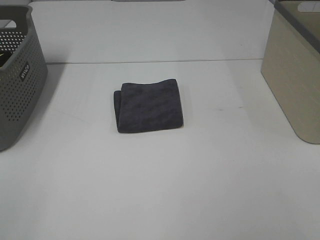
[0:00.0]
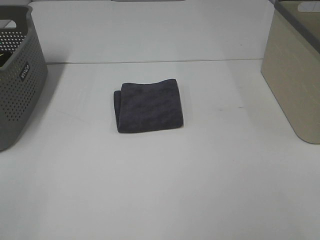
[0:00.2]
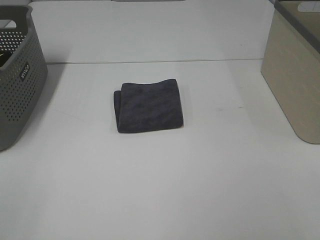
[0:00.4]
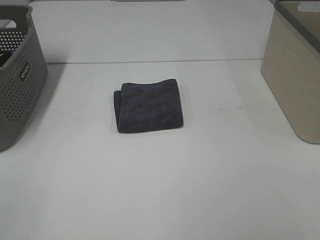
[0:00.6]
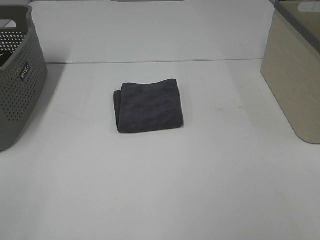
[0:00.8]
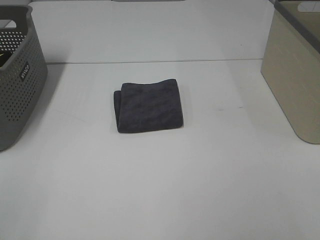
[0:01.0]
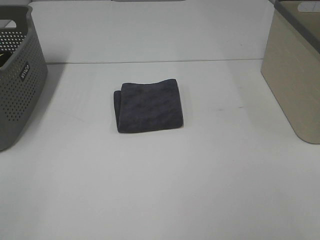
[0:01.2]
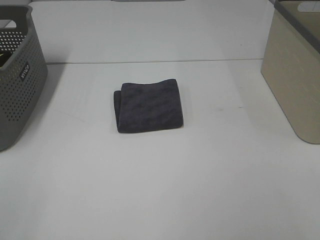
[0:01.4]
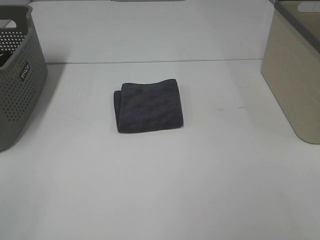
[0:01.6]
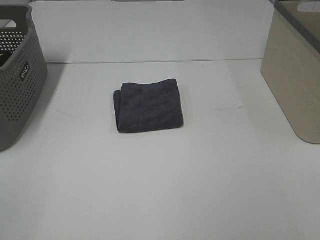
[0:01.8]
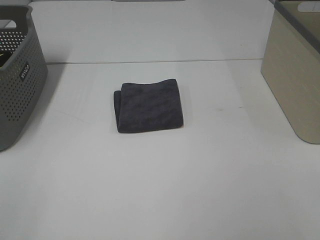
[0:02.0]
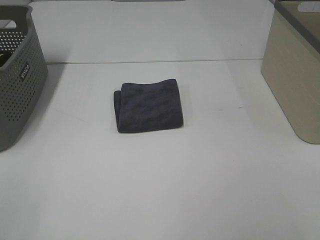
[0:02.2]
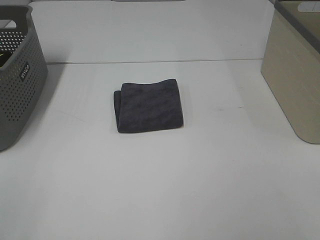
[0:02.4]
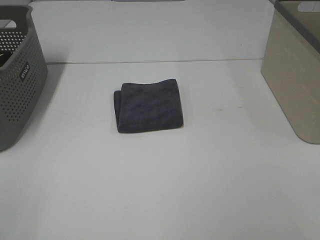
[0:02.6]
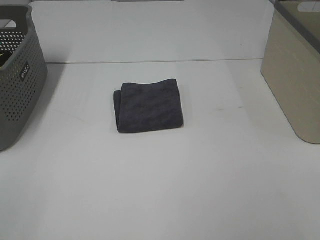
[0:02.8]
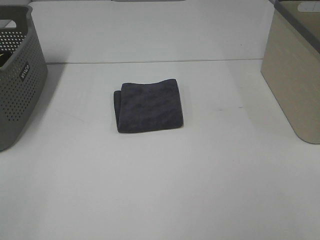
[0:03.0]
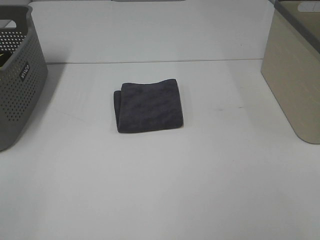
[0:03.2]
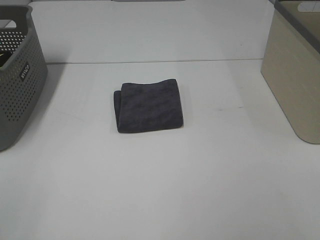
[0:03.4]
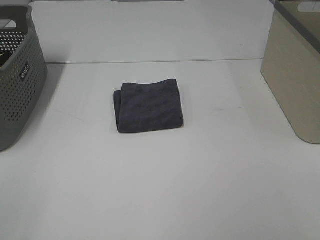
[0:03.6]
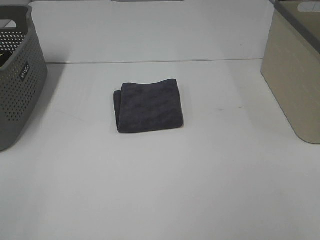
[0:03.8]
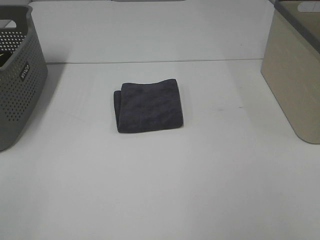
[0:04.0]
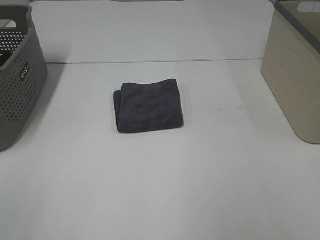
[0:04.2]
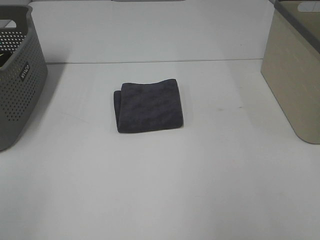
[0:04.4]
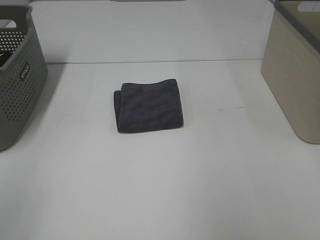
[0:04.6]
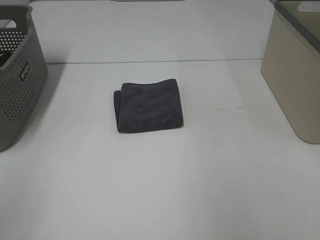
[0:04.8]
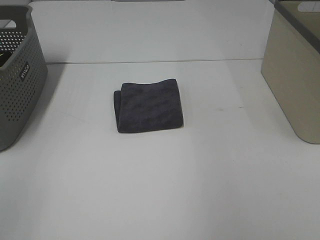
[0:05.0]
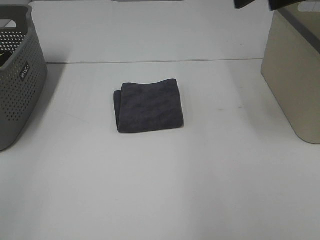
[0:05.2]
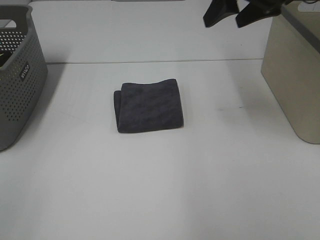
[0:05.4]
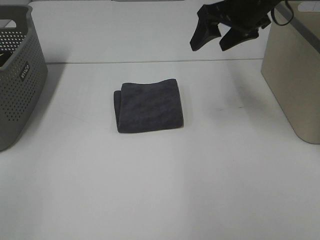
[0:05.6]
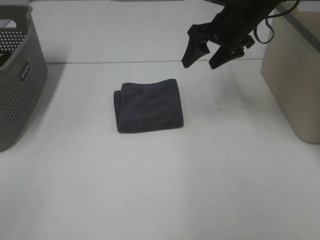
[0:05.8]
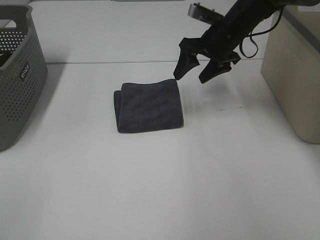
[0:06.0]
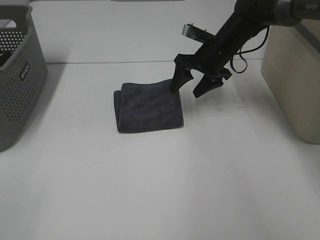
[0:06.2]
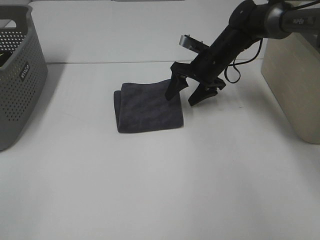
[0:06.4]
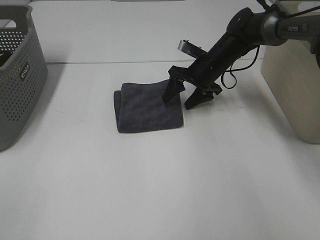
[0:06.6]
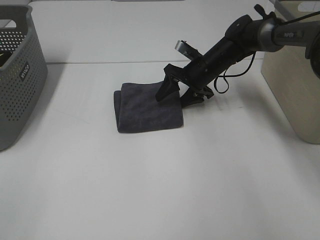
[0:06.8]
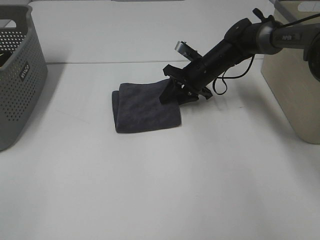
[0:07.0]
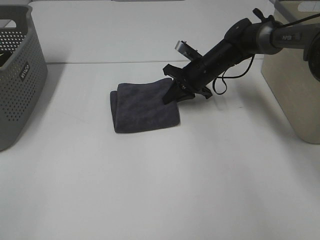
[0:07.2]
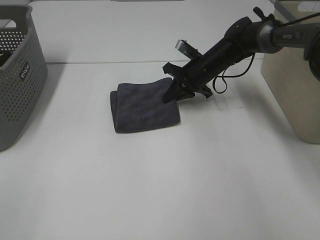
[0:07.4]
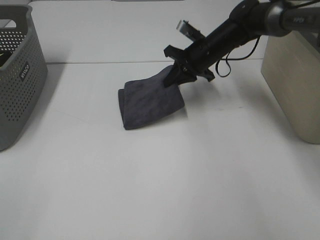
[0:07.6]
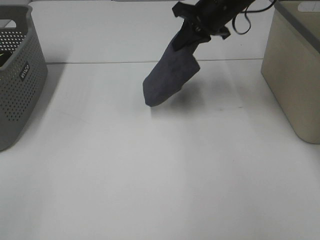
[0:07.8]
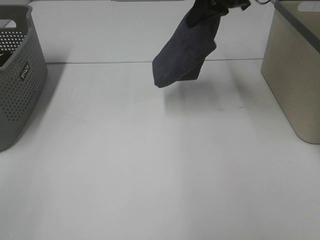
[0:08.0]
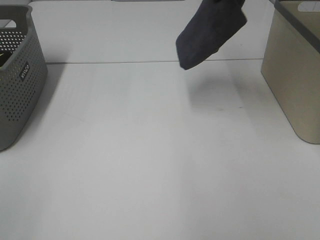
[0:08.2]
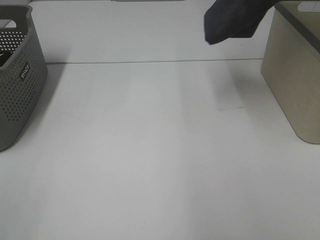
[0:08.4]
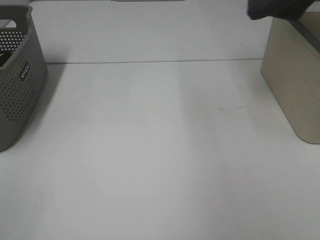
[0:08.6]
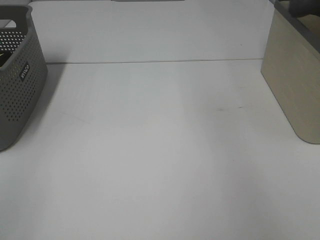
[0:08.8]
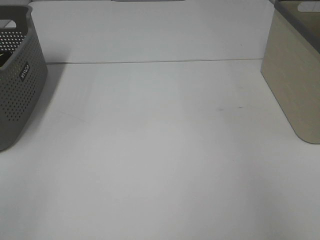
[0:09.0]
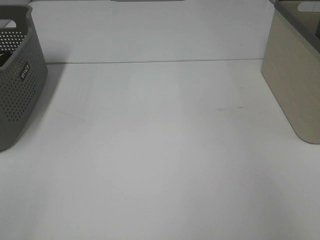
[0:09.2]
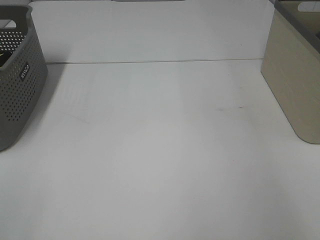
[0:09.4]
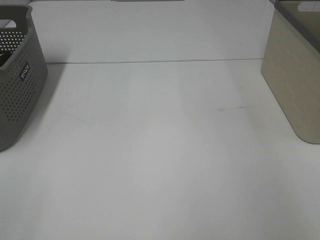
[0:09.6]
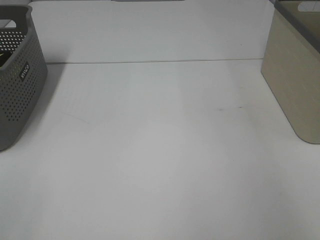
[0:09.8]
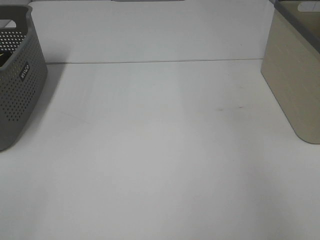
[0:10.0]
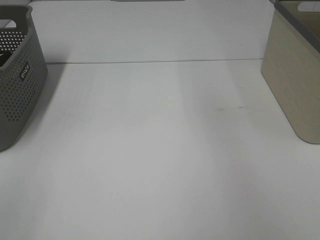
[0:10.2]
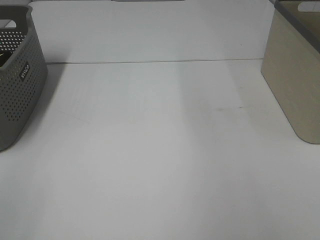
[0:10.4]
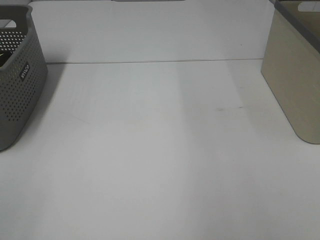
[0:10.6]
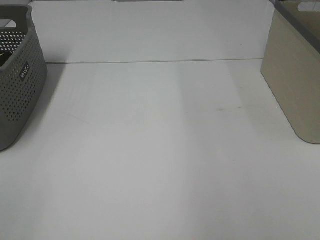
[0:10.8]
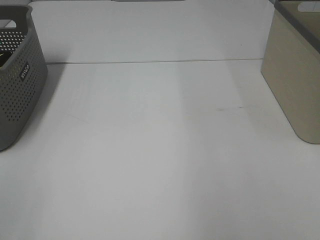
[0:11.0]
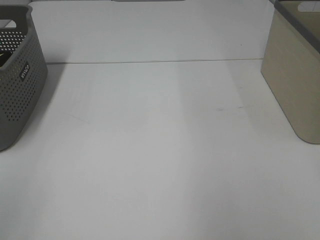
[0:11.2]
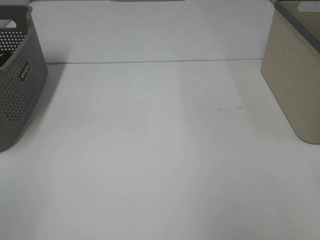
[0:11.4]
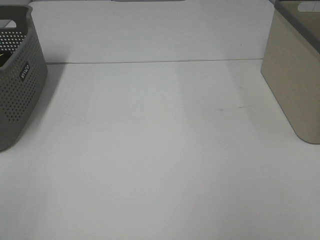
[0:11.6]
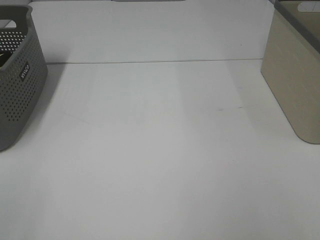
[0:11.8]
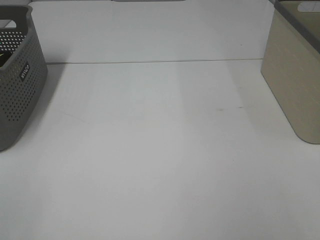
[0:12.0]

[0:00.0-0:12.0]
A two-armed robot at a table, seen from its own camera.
Step, 0:00.0 to 0:07.0: Right hand: grab the folded grey towel.
Step, 0:07.2 to 0:09.6: Right hand: place the grey towel in right basket.
0:00.0 to 0:03.0: The two grippers keep their place.
0:04.4 to 0:06.0: The right gripper goes roughly 40 cm forward, downward and to the left.
0:06.0 to 0:07.6: The right gripper closes up.
0:07.6 to 0:09.0: The right gripper goes roughly 40 cm upward and to the right.

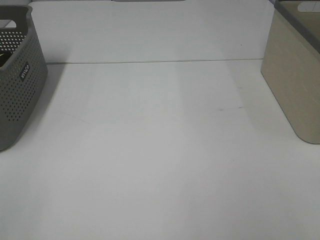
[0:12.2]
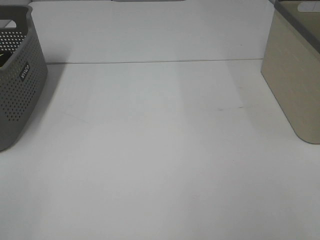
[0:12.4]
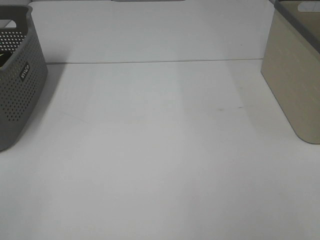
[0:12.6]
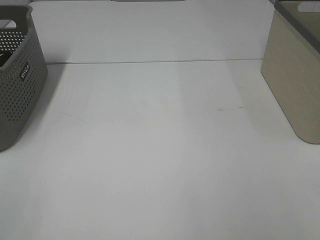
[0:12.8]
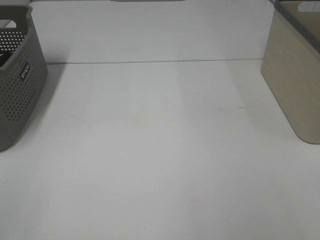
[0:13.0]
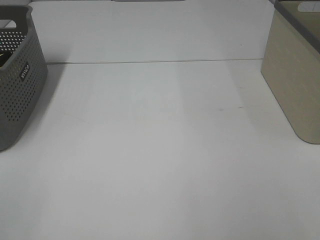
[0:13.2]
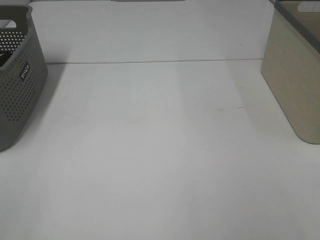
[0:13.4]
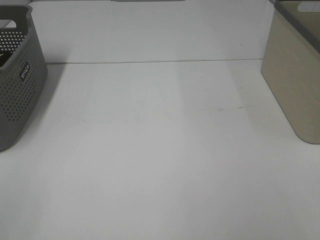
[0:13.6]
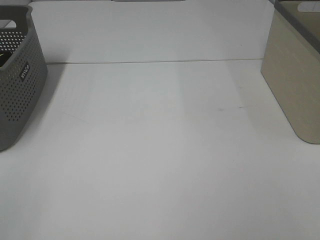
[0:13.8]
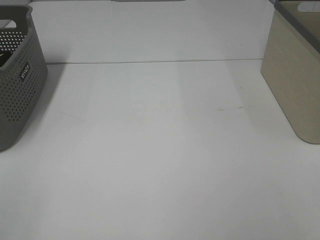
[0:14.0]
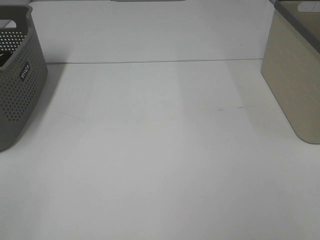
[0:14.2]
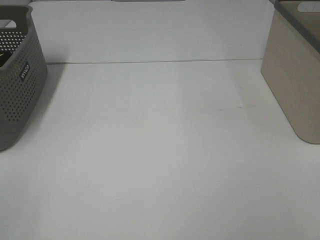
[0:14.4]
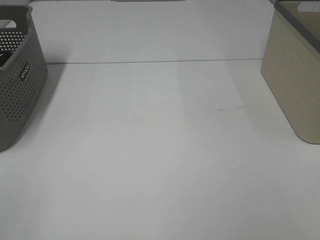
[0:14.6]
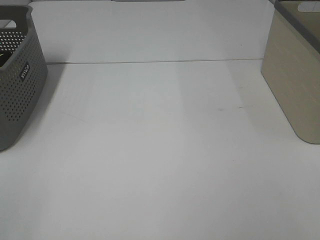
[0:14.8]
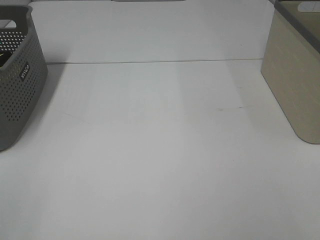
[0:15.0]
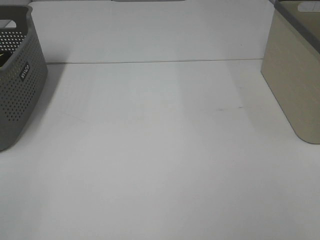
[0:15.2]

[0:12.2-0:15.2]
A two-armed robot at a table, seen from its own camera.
0:13.8 to 0:15.2: Neither gripper changes place.

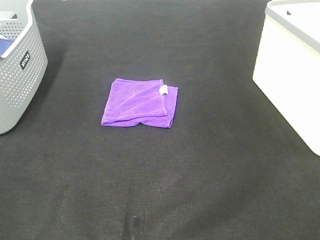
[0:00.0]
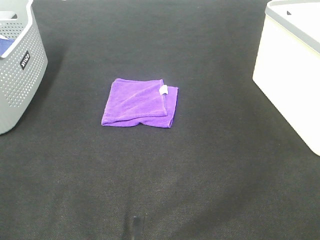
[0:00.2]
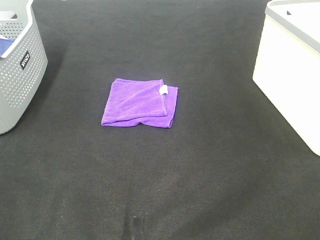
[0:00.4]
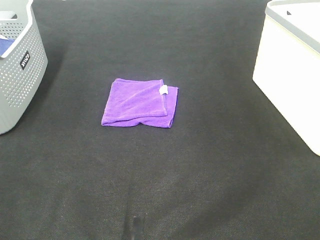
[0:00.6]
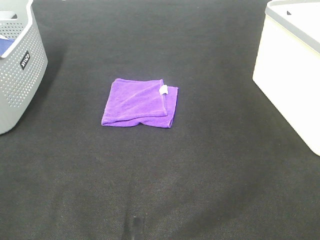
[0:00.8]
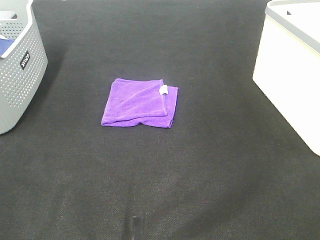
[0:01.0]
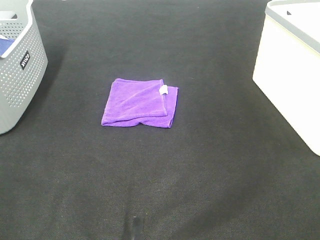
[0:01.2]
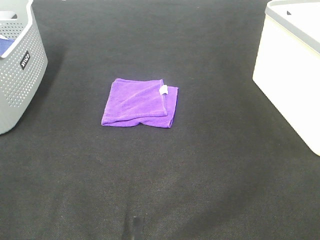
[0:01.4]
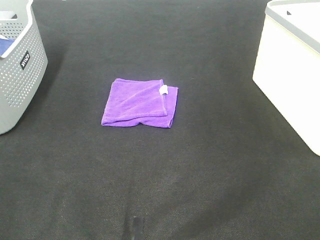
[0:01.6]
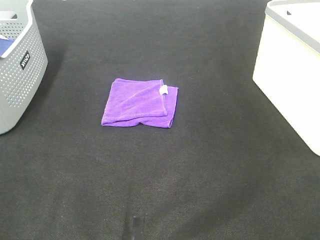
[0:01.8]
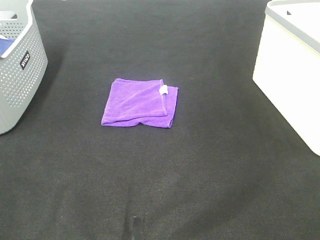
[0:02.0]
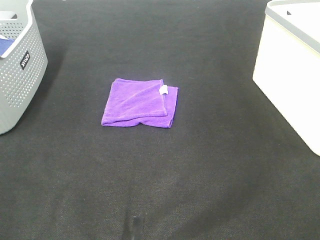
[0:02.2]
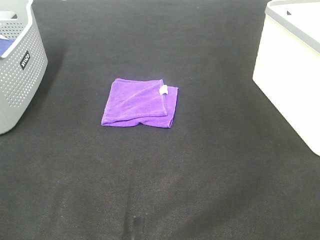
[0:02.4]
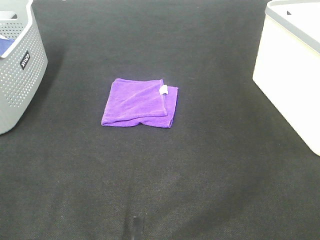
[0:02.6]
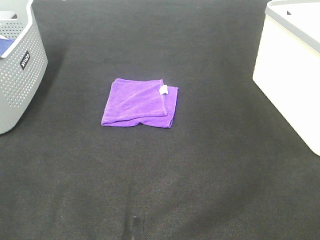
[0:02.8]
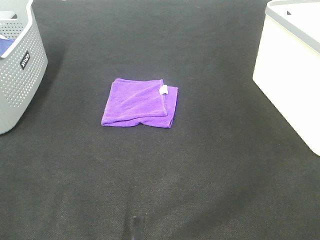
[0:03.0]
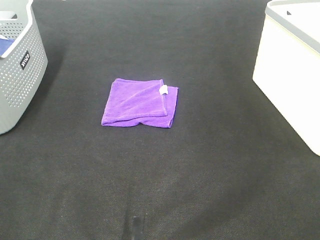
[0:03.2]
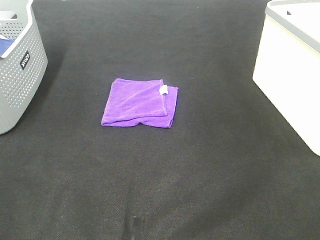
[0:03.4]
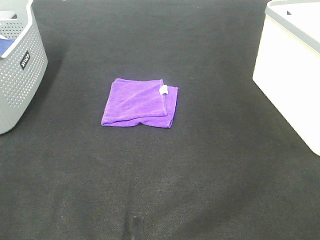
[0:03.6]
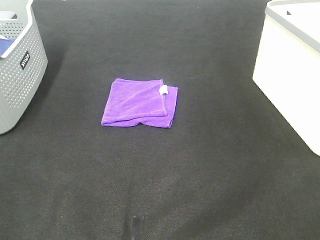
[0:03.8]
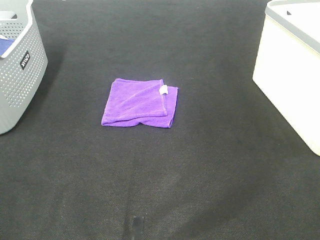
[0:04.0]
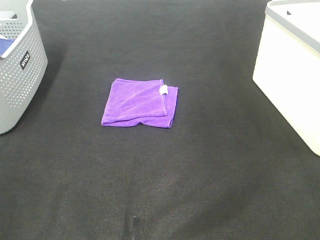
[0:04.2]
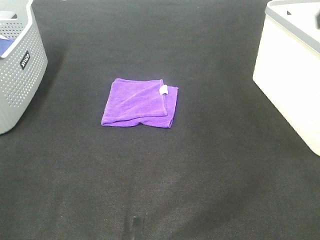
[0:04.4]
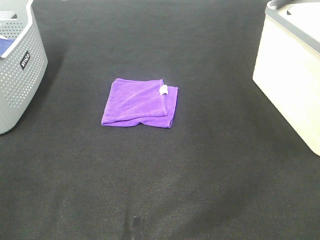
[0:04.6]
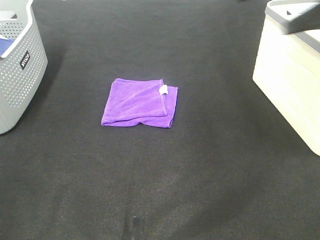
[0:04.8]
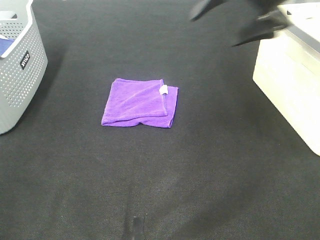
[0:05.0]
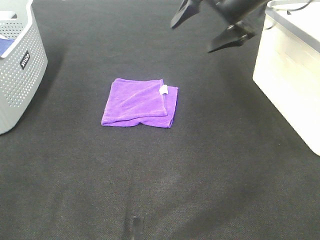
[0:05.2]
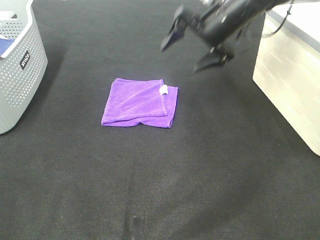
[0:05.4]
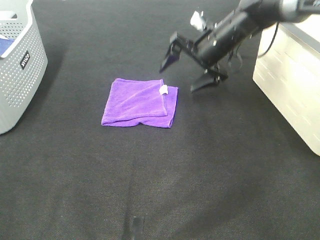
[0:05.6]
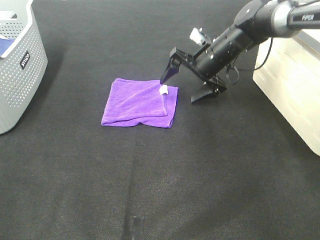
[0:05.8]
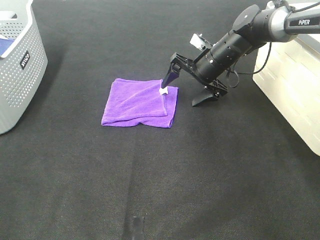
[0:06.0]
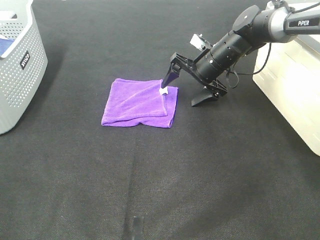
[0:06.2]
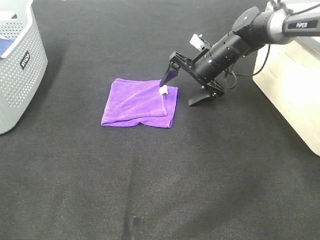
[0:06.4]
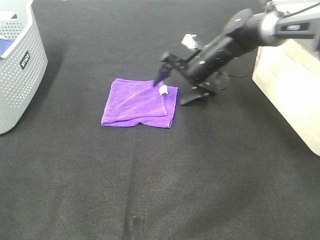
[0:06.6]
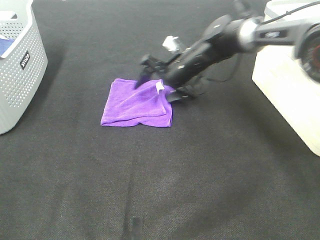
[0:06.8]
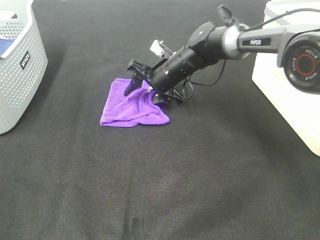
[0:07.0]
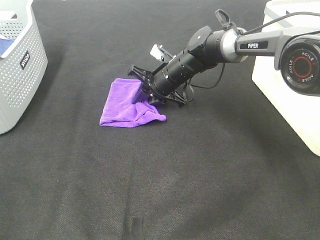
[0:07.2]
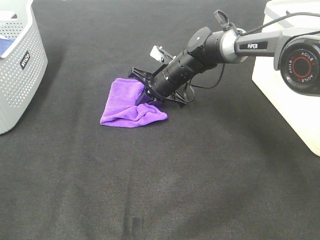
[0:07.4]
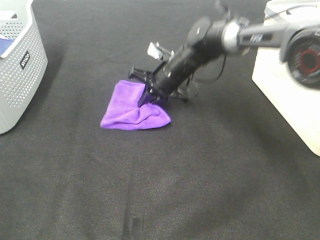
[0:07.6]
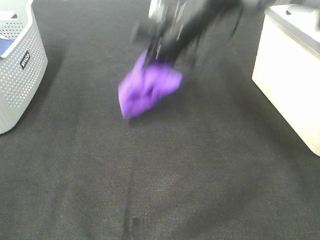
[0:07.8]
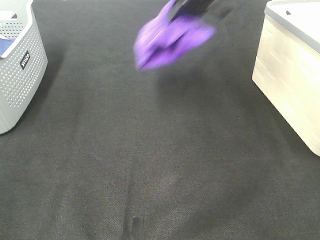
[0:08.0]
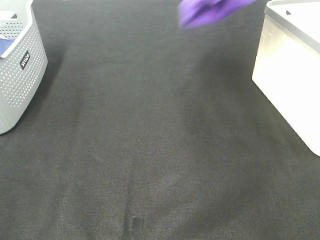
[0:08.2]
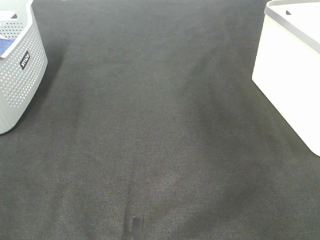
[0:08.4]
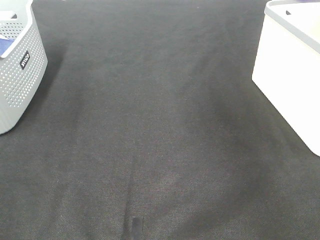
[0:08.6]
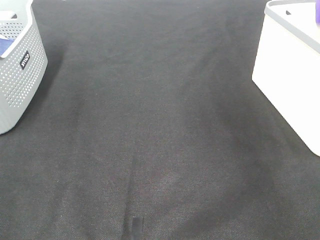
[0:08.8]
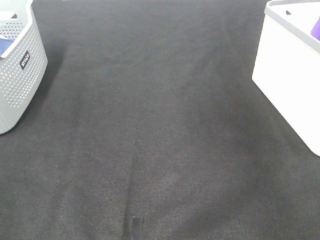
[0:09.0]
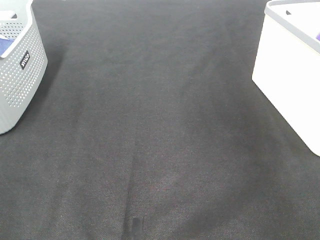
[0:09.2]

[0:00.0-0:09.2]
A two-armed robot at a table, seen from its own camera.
Step, 0:00.0 to 0:07.2: Right hand: grab the folded purple towel.
Step, 0:07.4 to 0:09.2: Right hand: place the purple towel in right basket.
0:00.0 to 0:03.0: Both grippers stay put.
0:04.6 to 0:06.2: The right gripper travels downward, forward and to the left by roughly 35 cm.
0:06.2 to 0:07.6: The right gripper heads to the left, covering approximately 10 cm, and closes its fingers.
0:07.6 to 0:09.2: The right gripper moves to the right and upward, roughly 40 cm, and opens.
